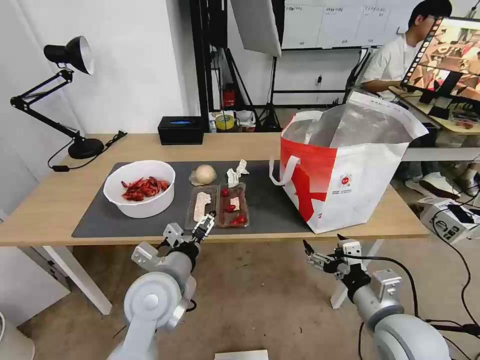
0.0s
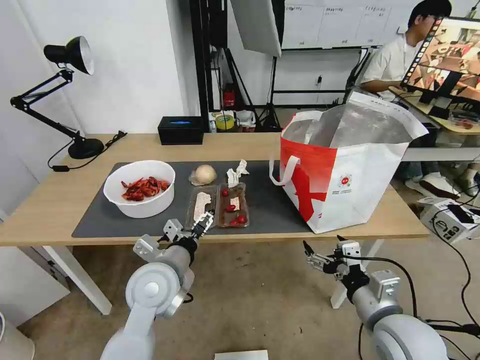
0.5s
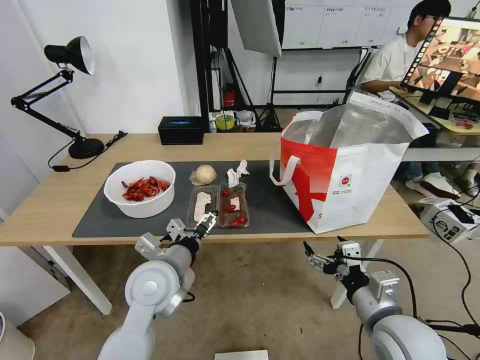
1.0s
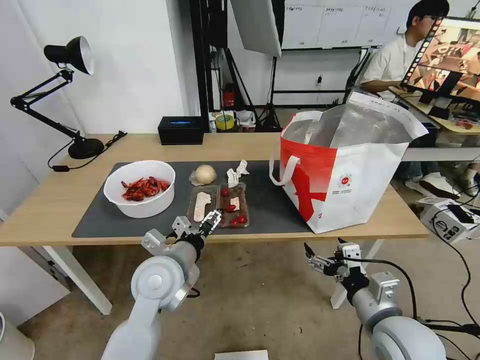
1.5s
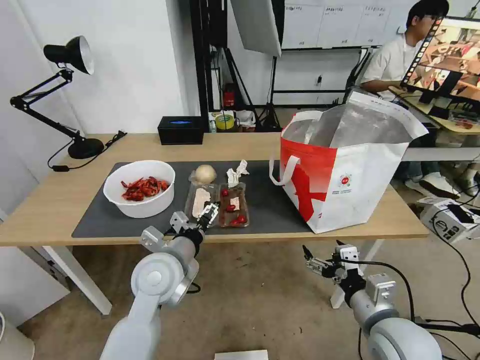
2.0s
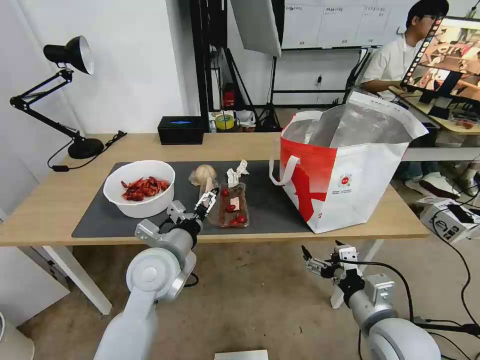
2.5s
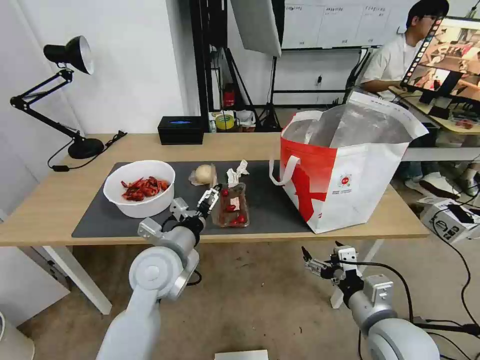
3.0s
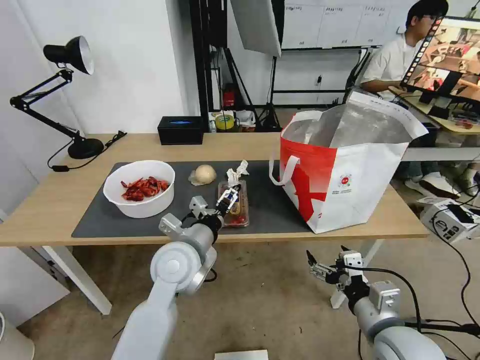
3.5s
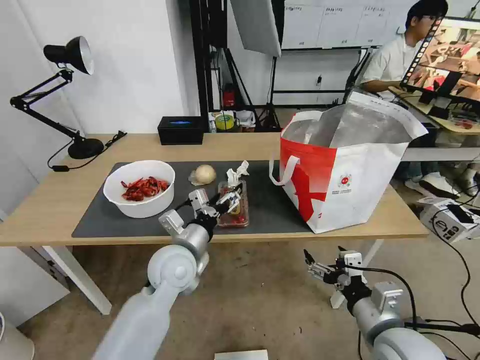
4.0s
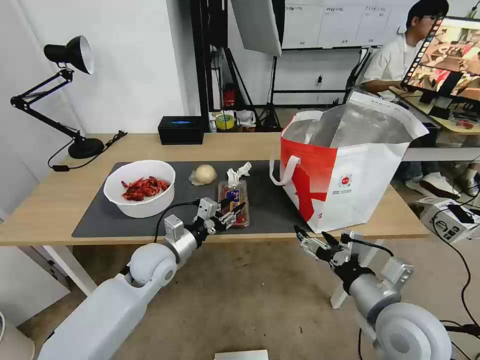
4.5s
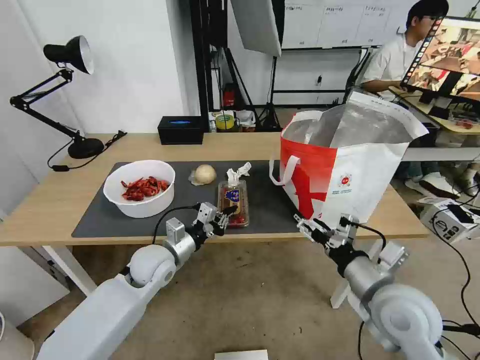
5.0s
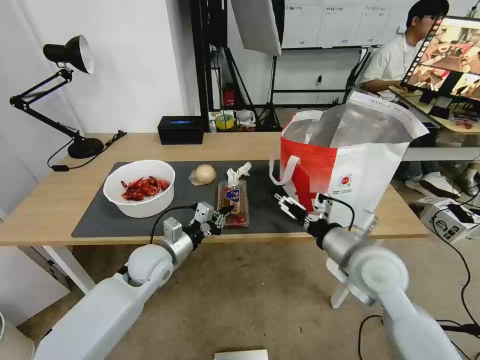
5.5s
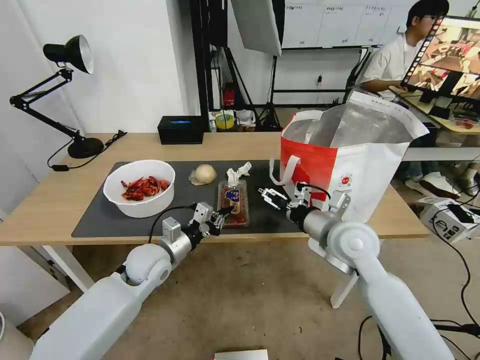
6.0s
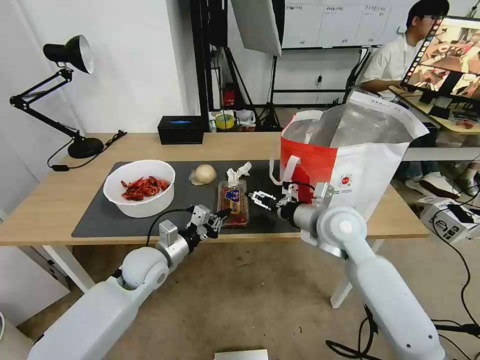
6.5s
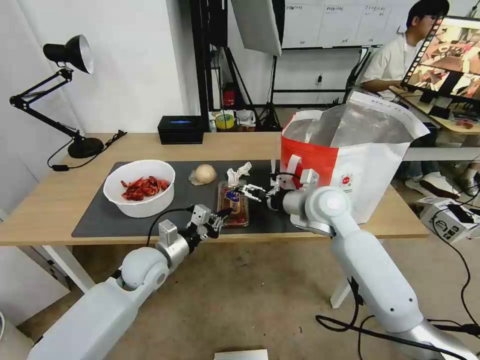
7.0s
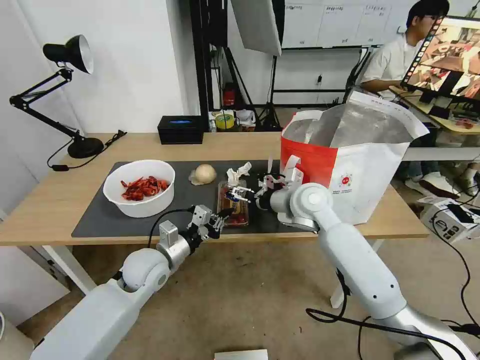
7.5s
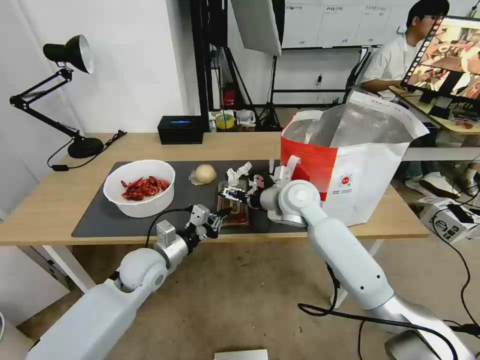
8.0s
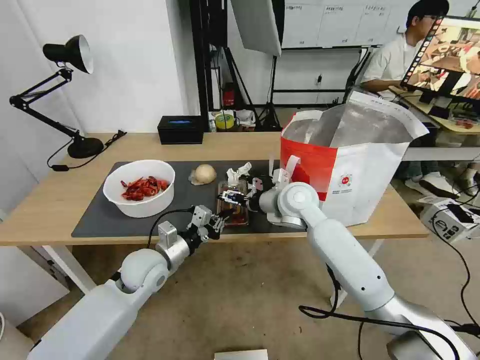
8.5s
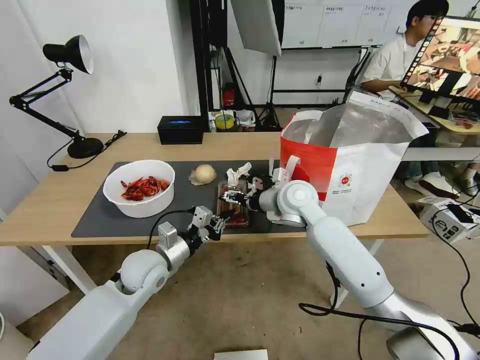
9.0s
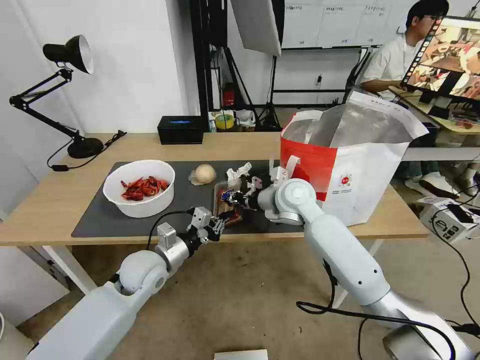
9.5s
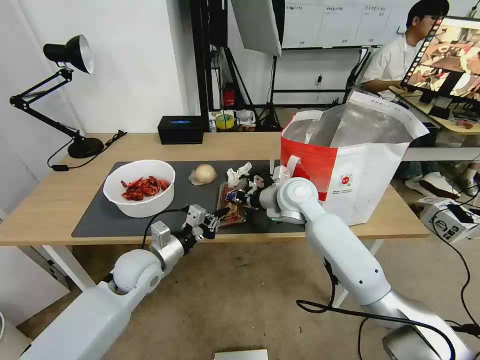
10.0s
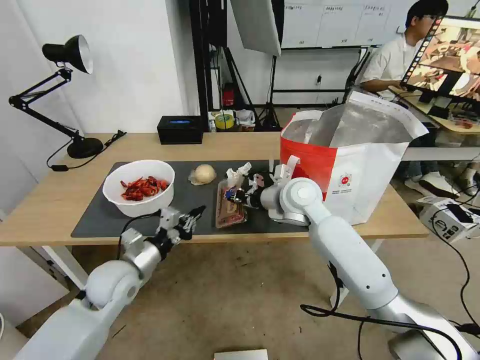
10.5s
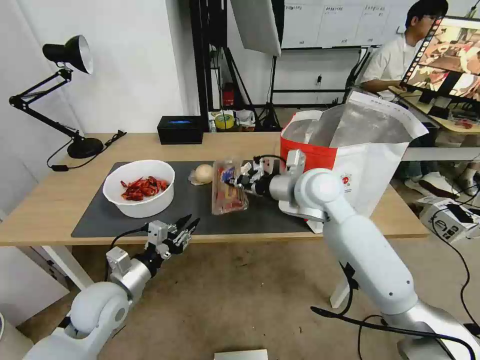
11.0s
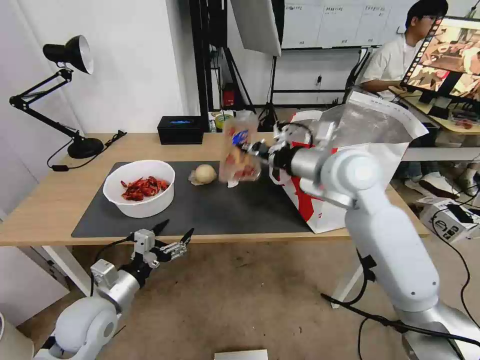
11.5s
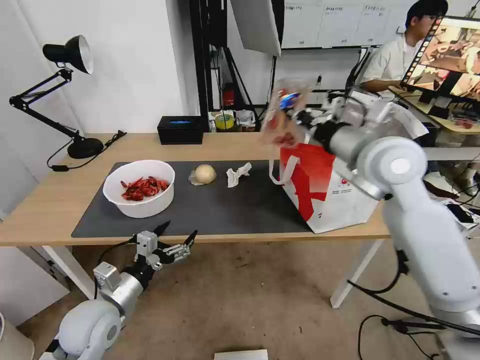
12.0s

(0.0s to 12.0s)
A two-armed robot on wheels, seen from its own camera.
Task of the whole recording: Pick up the trash from the table and place it into the takeout bag.
0.0s - 2.0s: The grippers make only small movements.
4.0s - 6.0s: The left gripper moves to the left and downward, about 10 cm, and closes up; the right gripper moves forward, some 20 cm.
6.0s - 8.0s: The right gripper goes about 15 cm forward and to the left.
8.0s - 10.0s: The right gripper closes its fingers.
10.0s - 12.0s: The right gripper moves upward, to the right and backward, approximately 20 cm. Meanwhile the left gripper goes some 10 cm backward and to the left, and opens.

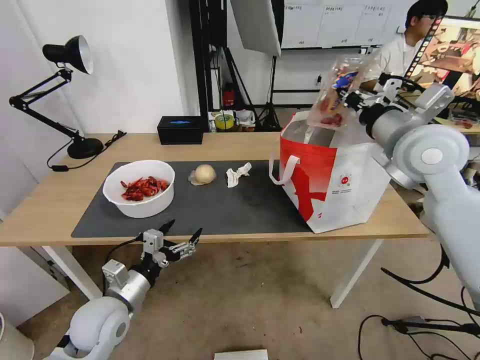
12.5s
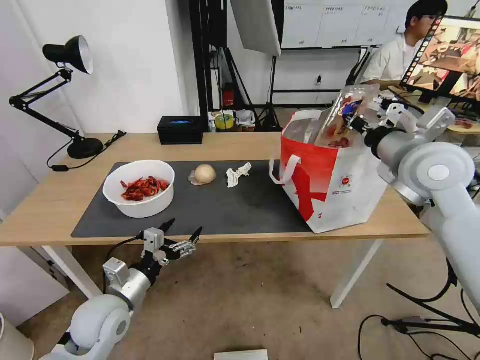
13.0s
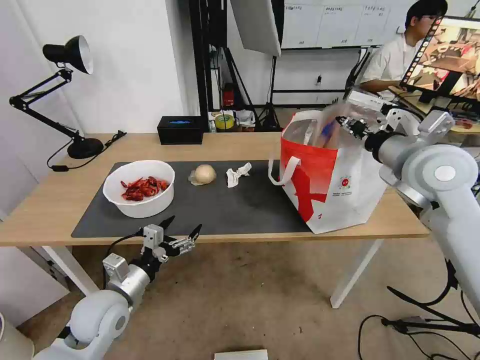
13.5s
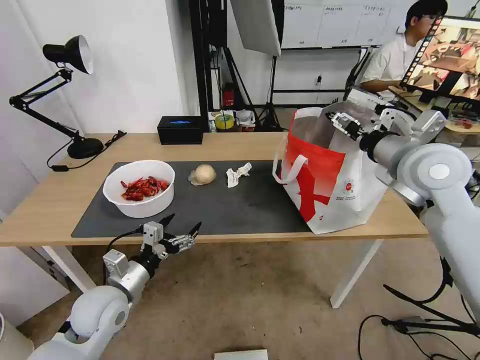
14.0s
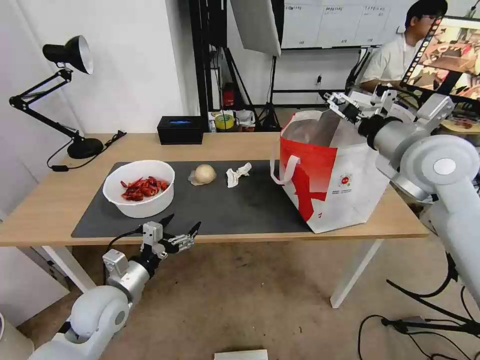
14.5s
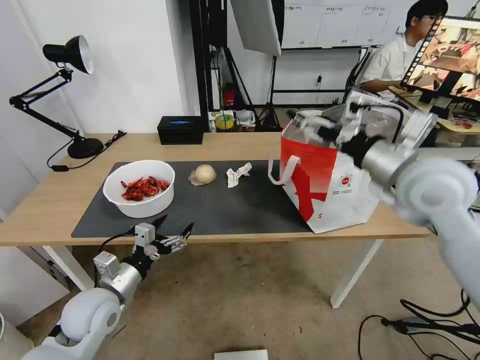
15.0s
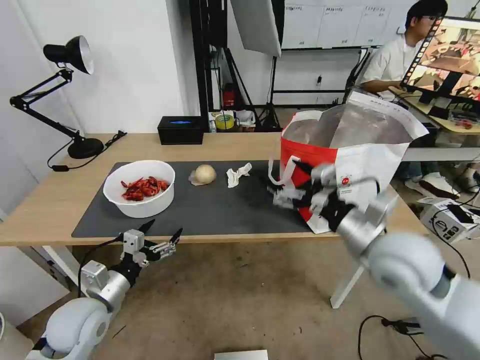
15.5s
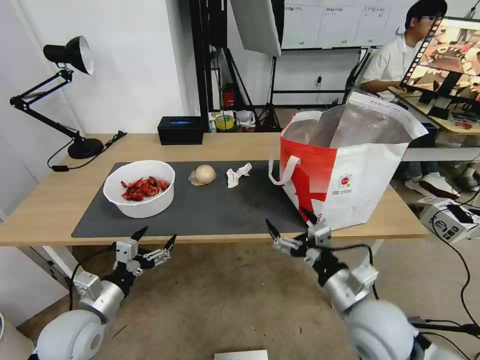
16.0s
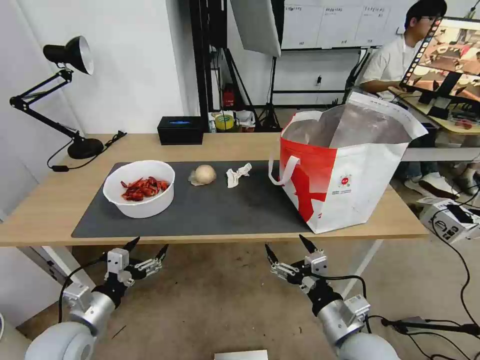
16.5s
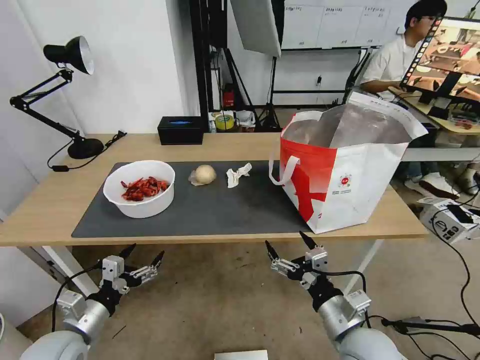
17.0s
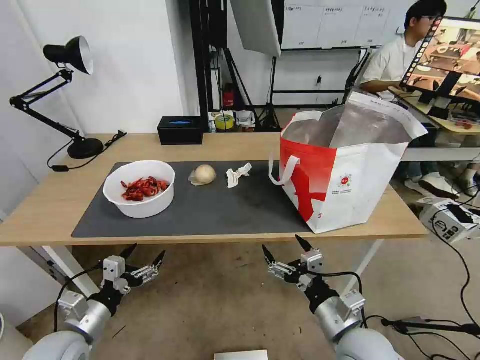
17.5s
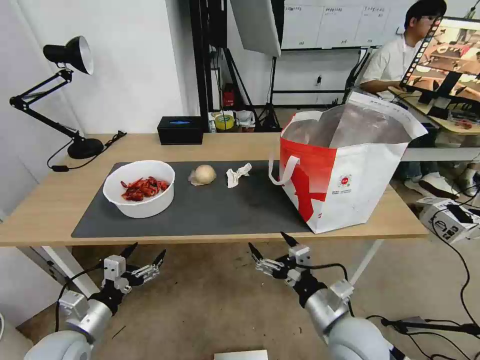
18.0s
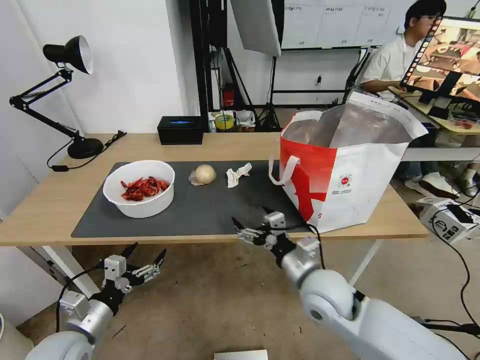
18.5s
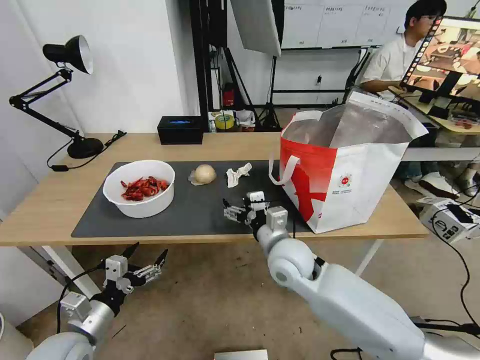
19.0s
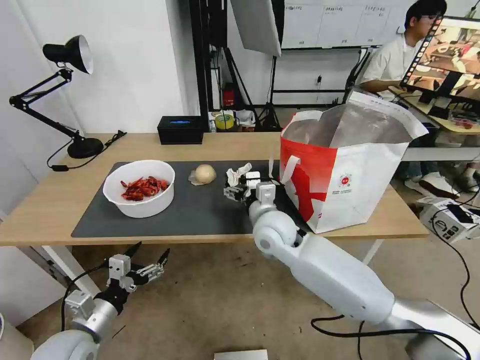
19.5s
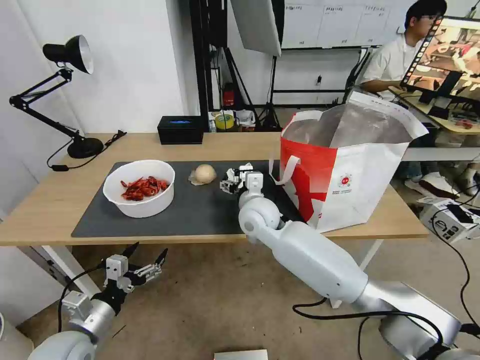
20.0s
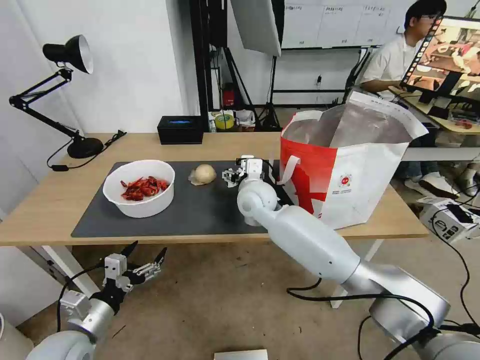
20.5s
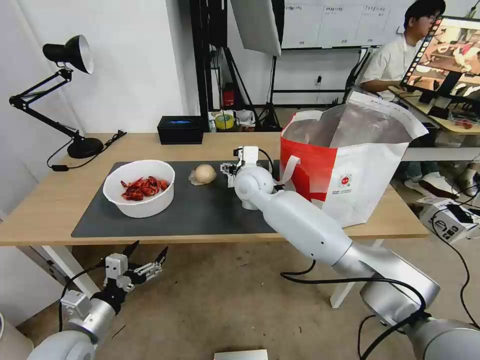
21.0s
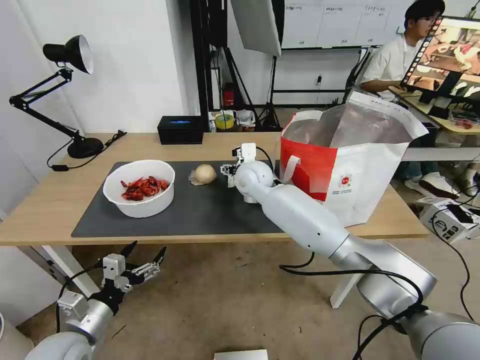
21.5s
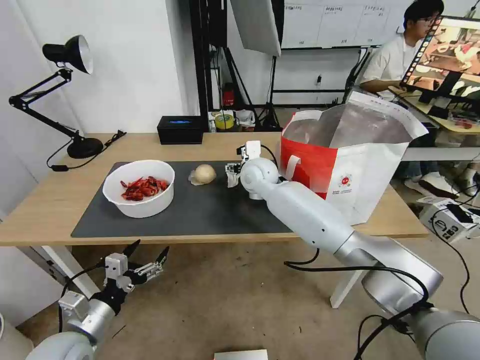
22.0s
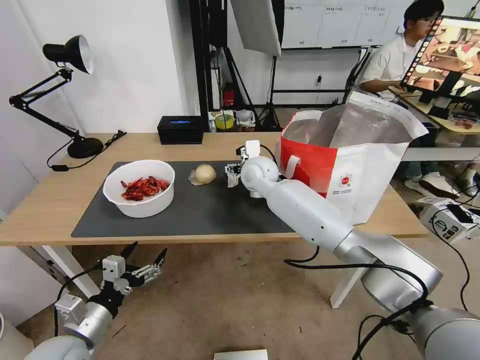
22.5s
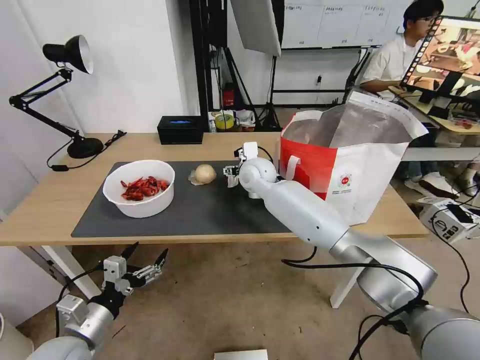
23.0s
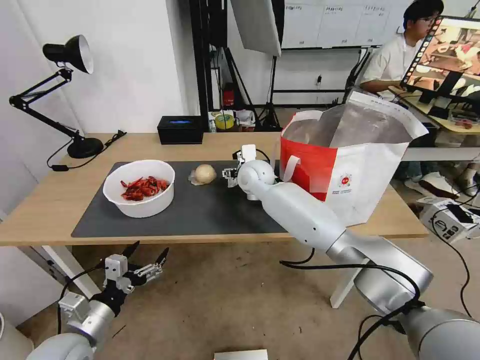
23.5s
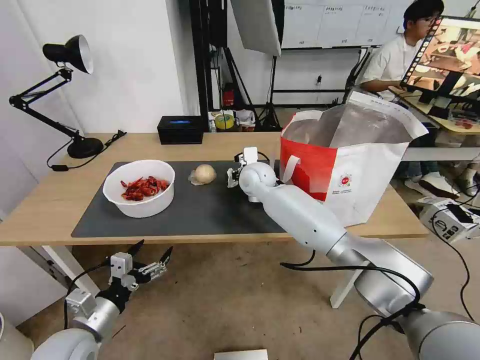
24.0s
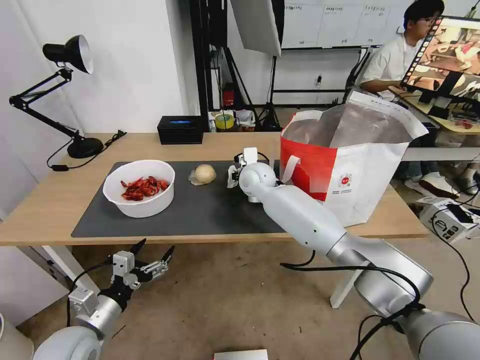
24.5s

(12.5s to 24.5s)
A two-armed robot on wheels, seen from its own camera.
Task of the whole recording: Pick up the trash from the table and place it into the takeout bag.
12.5s - 14.5s: The right gripper opens.
14.5s - 16.5s: The left gripper heads backward and to the left, covering about 10 cm; the right gripper moves downward and backward, some 35 cm.
16.5s - 18.5s: The right gripper heads forward and to the left, covering approximately 10 cm.
18.5s - 20.5s: The right gripper is displaced forward and to the left by some 25 cm.
20.5s - 22.5s: The right gripper heads forward, covering some 5 cm.
22.5s - 24.5s: The right gripper closes up.

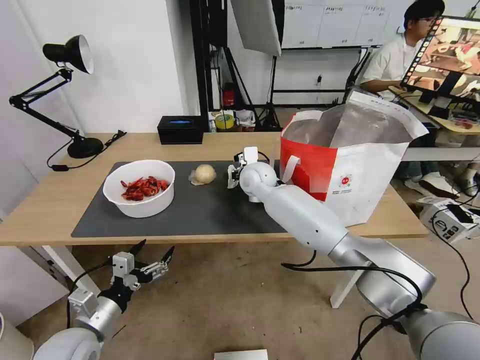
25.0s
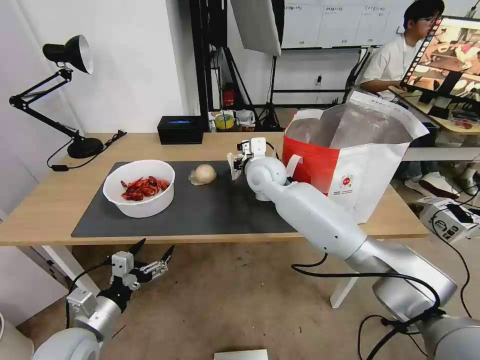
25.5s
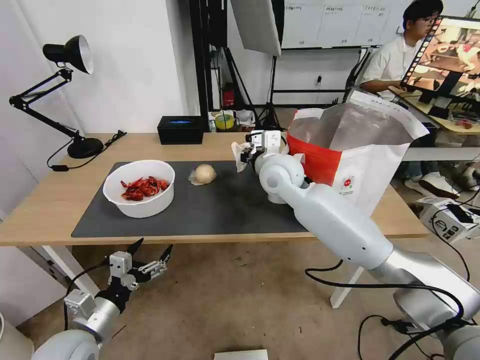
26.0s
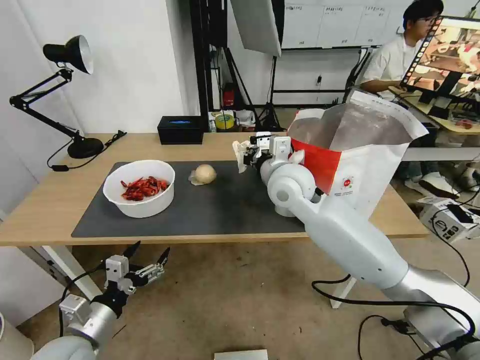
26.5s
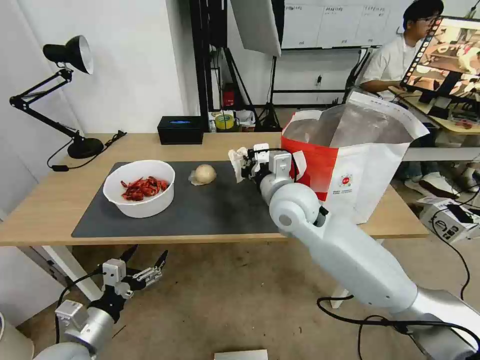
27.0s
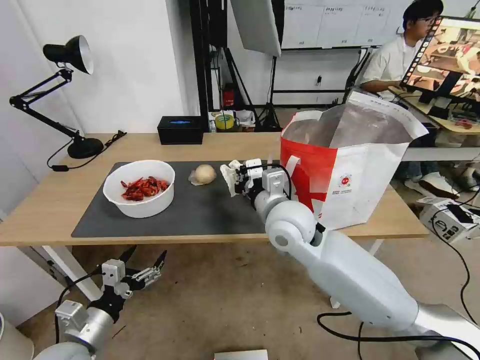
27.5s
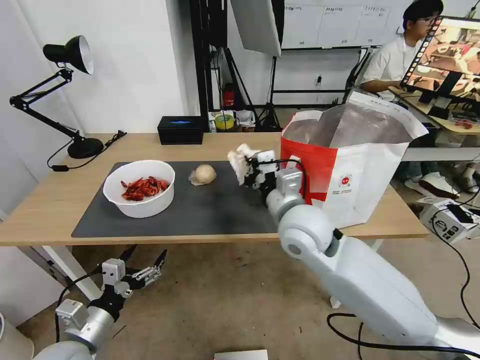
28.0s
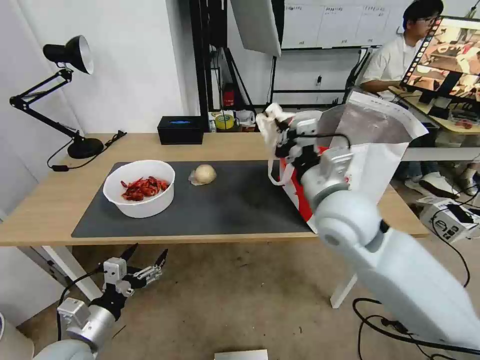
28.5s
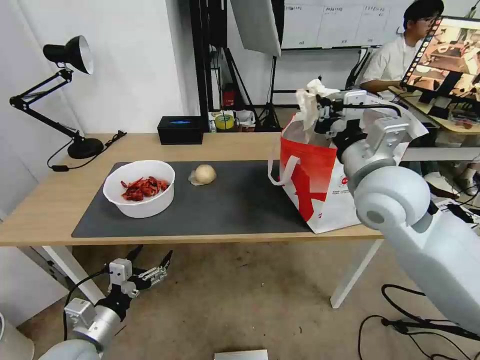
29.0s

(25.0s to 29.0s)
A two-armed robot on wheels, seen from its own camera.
Task of the whole recording: Pick up the trash from the table and place it into the takeout bag.
25.0s - 27.0s: The right gripper goes about 15 cm backward and upward.
27.0s - 29.0s: The right gripper heads to the right, upward and backward, covering approximately 15 cm.
